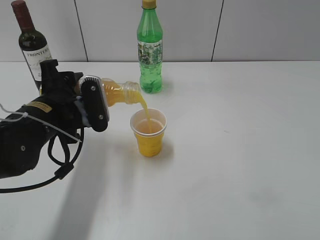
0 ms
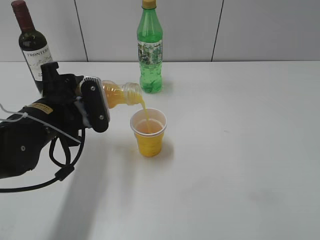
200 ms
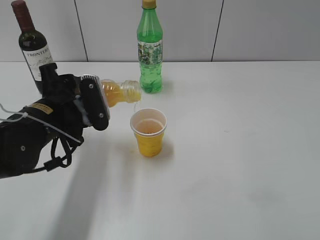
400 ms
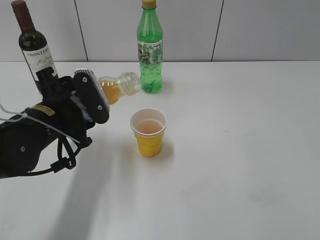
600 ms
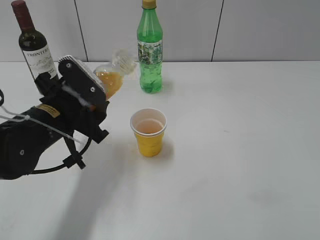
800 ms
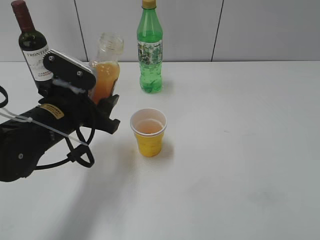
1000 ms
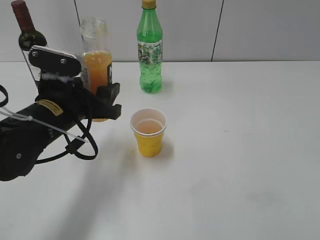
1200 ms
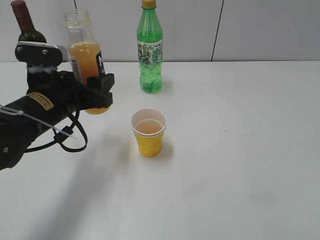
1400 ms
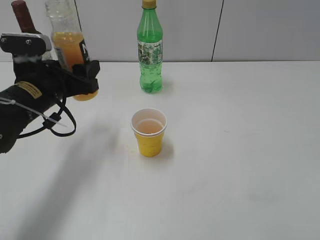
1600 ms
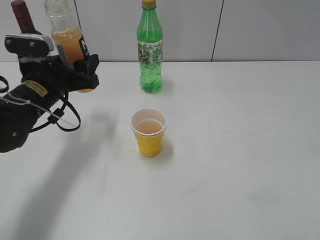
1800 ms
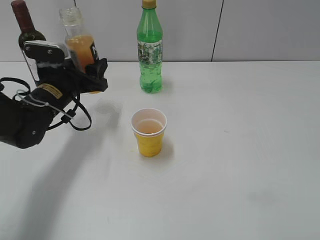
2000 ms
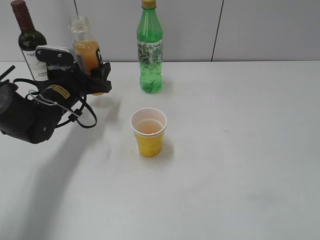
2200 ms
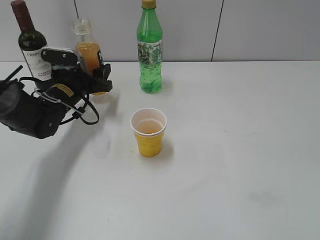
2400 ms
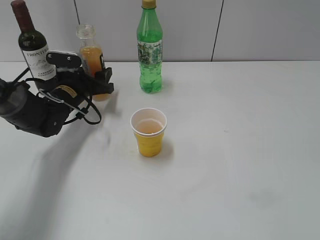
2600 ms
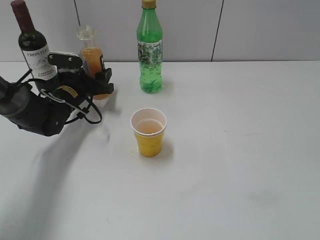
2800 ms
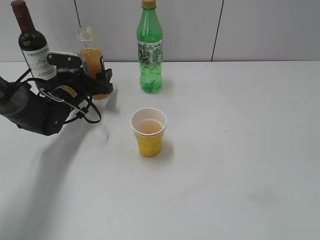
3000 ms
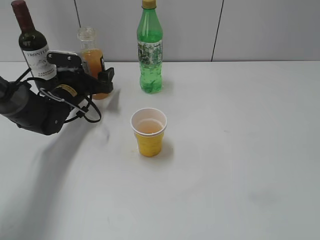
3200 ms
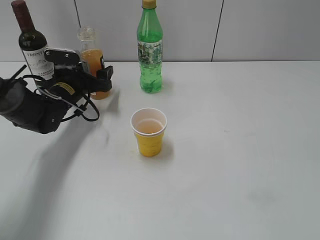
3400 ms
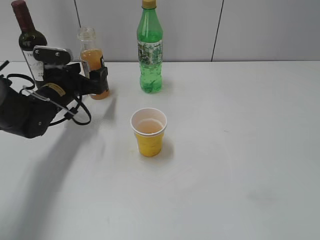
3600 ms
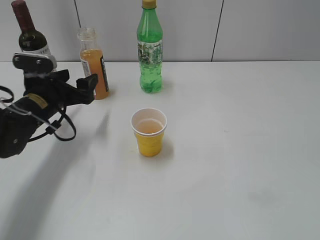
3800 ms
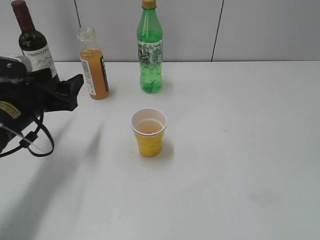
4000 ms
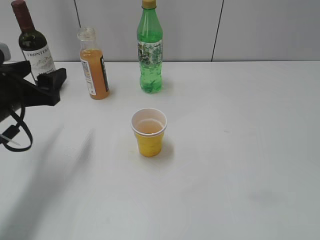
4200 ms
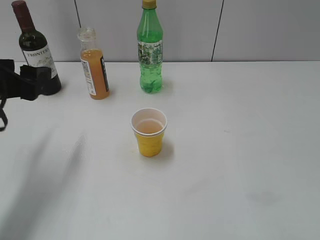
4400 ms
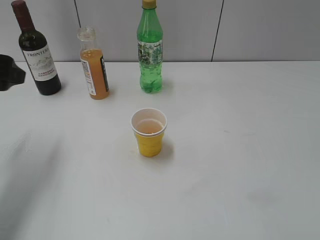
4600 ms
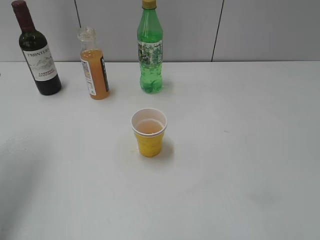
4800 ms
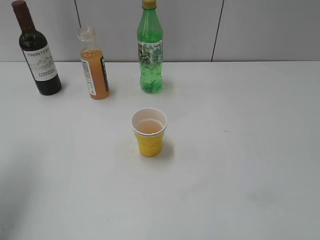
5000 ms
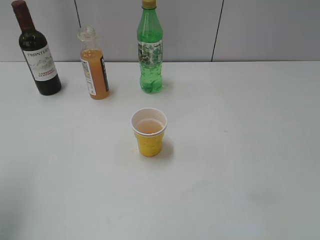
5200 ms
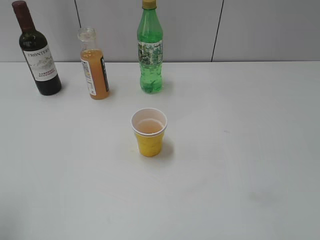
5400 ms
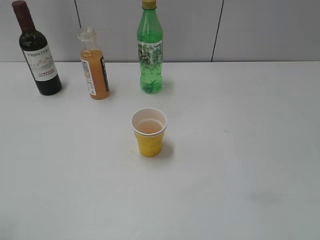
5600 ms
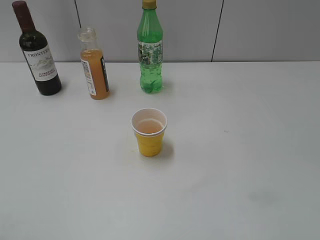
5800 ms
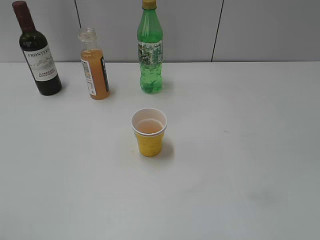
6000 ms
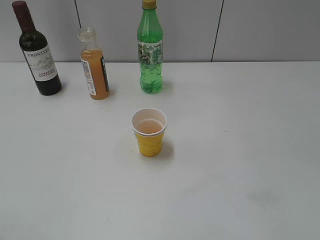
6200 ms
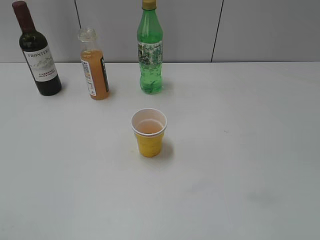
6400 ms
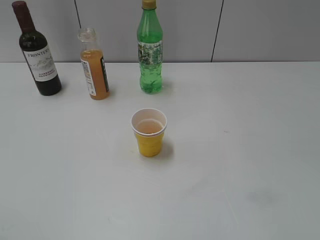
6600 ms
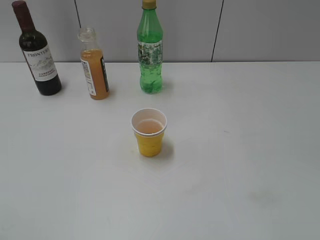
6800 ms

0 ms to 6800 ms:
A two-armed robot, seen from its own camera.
Step, 800 ms to 3400 ms: Place the orange juice bottle on the table with left gripper.
1400 ms to 2800 ms: The left gripper is displaced forward and downward by about 20 cm.
2800 ms to 4000 ms: The left gripper shifts roughly 15 cm backward and upward, and opens.
4000 ms to 5400 ms: The left gripper moves upward and backward, some 25 cm.

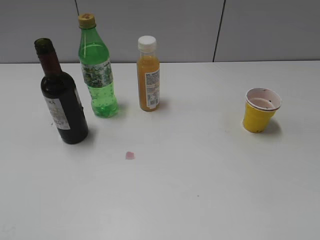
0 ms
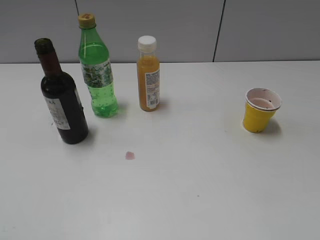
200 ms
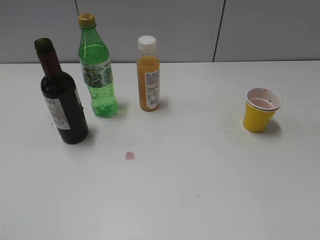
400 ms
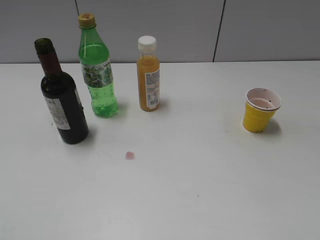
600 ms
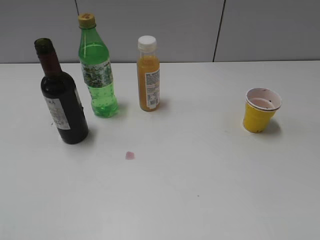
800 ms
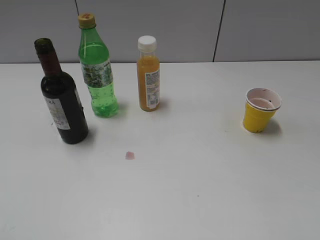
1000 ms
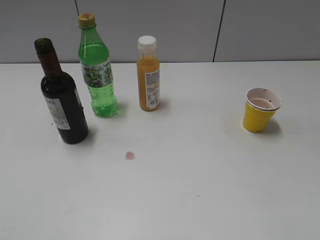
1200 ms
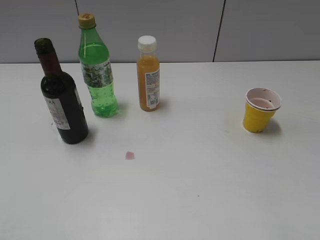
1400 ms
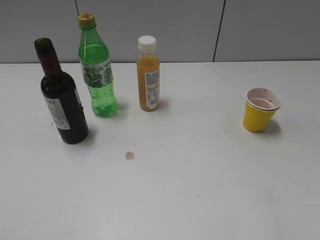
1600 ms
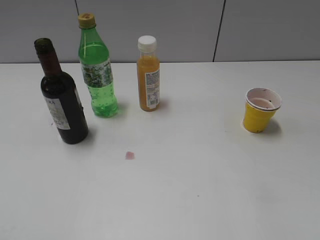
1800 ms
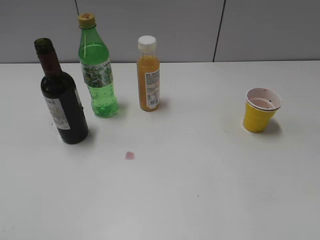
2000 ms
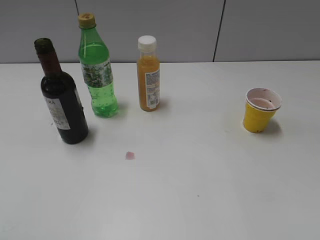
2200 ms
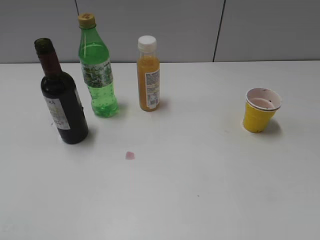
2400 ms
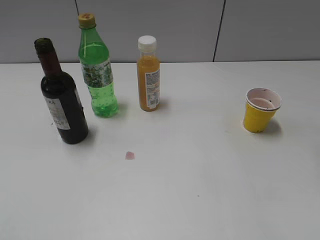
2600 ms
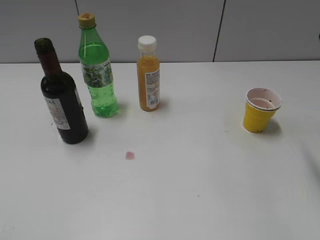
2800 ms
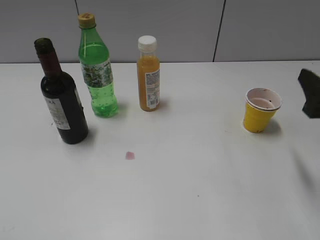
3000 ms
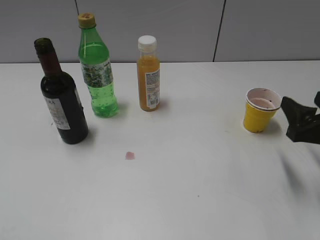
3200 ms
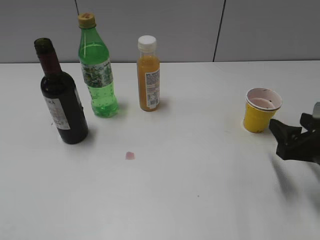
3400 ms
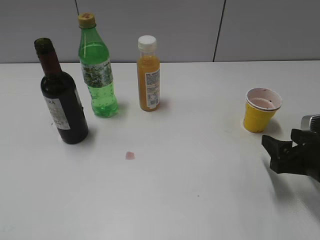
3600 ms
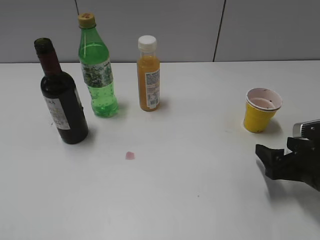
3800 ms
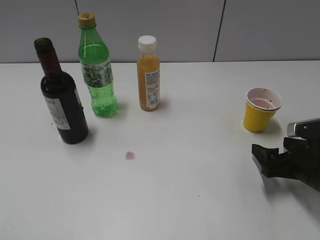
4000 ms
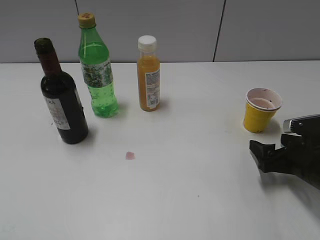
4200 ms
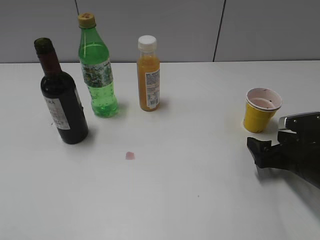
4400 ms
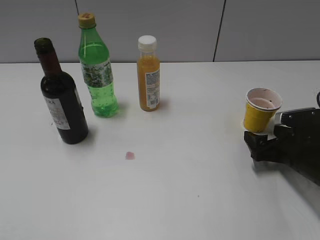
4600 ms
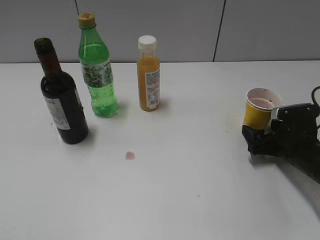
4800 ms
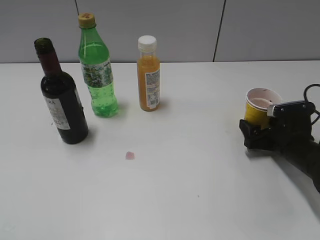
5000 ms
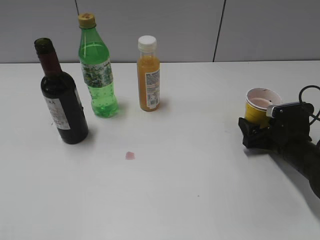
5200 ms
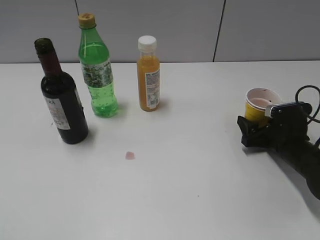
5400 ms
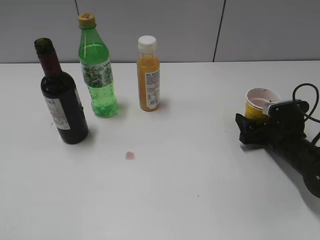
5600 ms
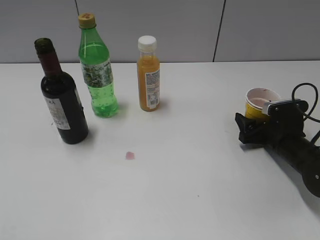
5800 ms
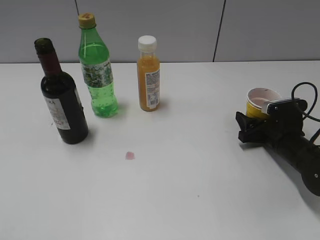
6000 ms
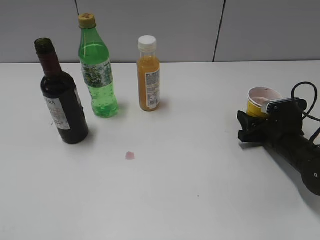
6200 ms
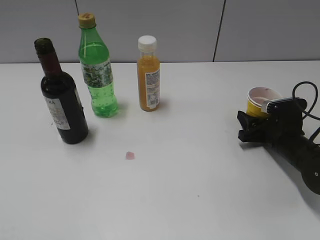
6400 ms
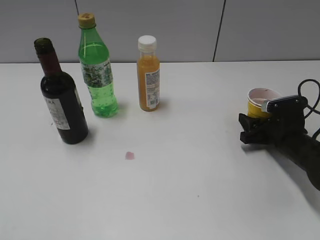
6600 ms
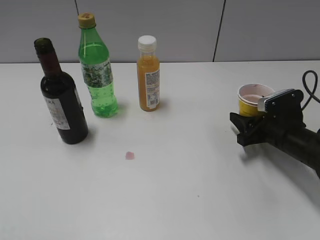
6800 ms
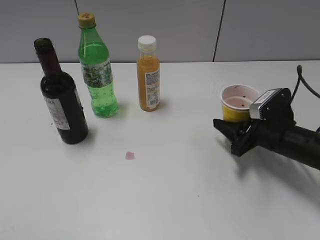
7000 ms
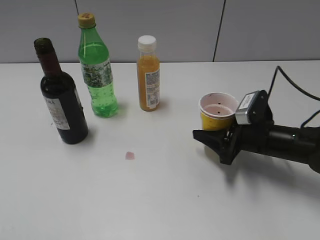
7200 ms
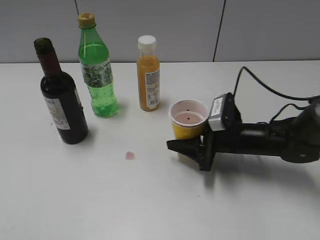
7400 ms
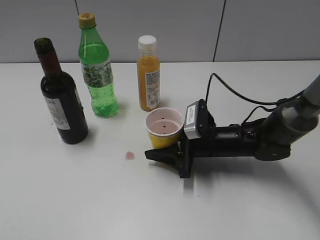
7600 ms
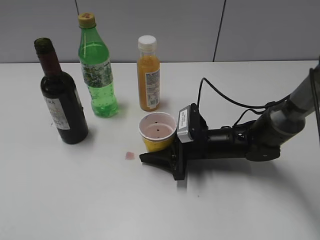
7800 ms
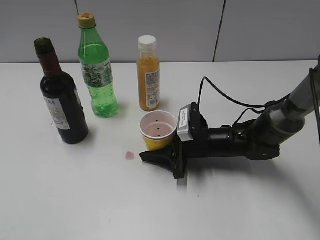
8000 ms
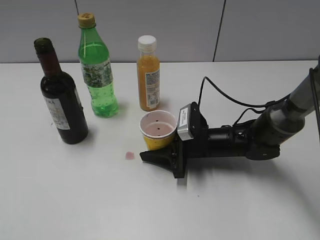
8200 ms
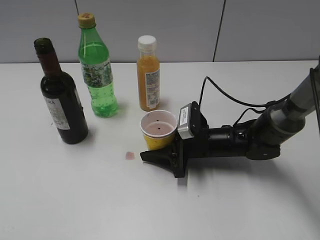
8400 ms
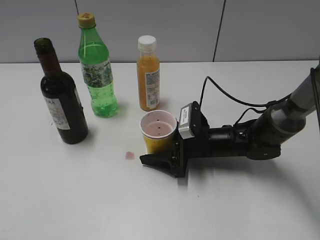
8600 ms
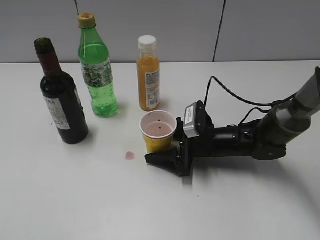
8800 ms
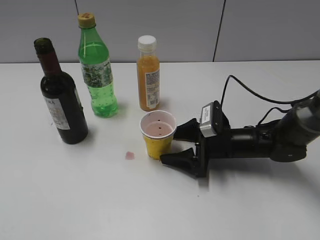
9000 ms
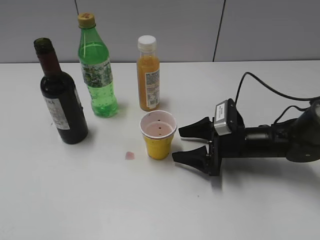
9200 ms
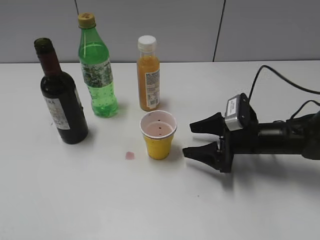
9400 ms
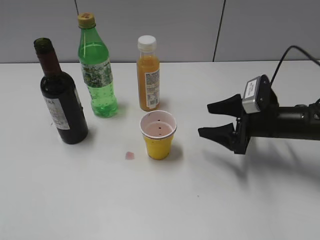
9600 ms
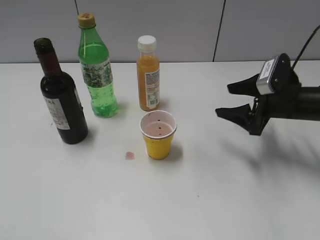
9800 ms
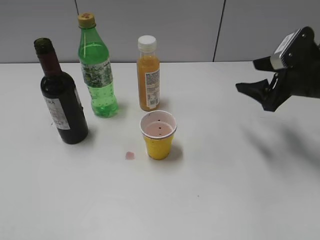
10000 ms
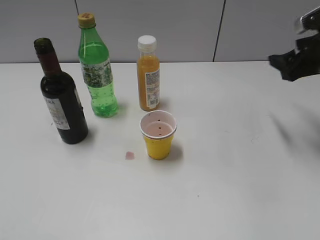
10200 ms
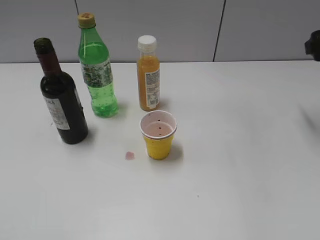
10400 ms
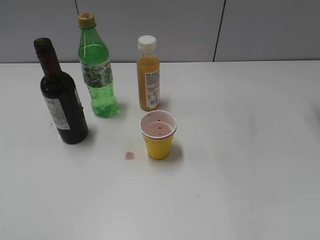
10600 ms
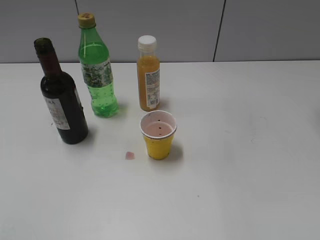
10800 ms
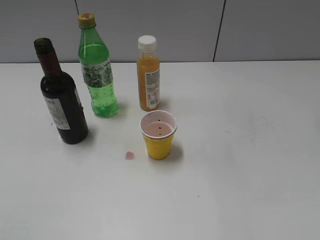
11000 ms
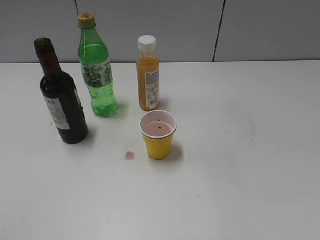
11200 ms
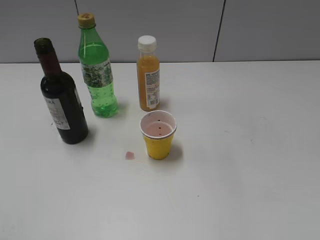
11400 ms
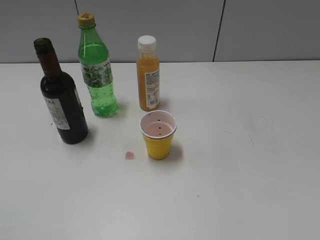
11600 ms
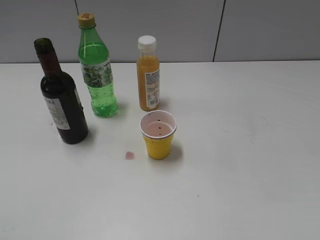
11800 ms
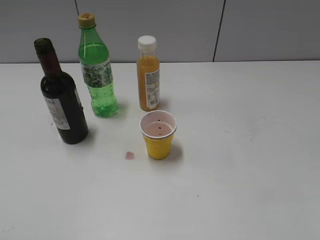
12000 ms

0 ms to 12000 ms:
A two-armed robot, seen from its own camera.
Step, 800 ms to 6400 ms: Grasp the yellow paper cup with right gripper.
Step, 6600 ms to 9000 ms: Place the yellow paper cup on the table with right gripper.
1600 ms to 3000 ms: The right gripper is displaced downward and forward by approximately 20 cm, and closes its fingers.
3000 ms to 4400 ms: The right gripper travels downward by approximately 15 cm, and opens.
4400 ms to 6000 ms: The right gripper heads forward, covering approximately 5 cm, and closes up.
6000 ms to 7600 ms: The right gripper is displaced to the left by some 15 cm, and closes its fingers.
7600 ms to 9000 ms: The right gripper opens.
9000 ms to 10400 ms: The right gripper travels upward and to the right by about 30 cm.

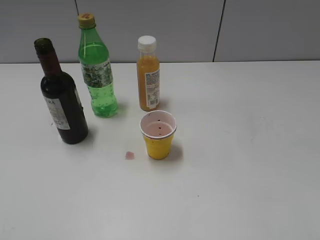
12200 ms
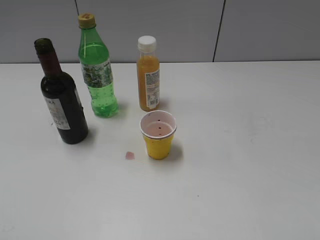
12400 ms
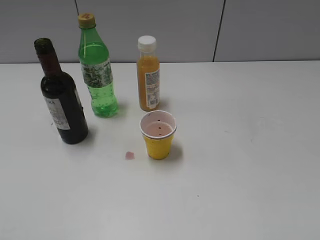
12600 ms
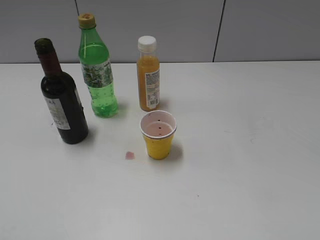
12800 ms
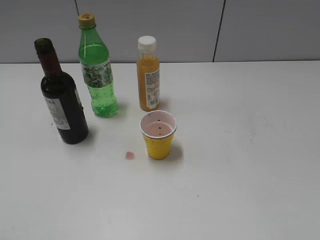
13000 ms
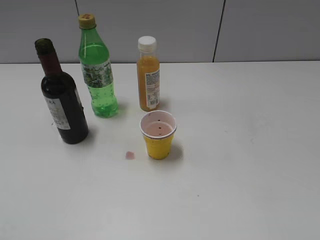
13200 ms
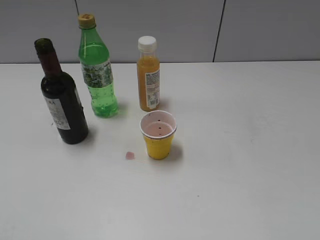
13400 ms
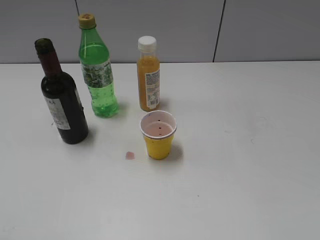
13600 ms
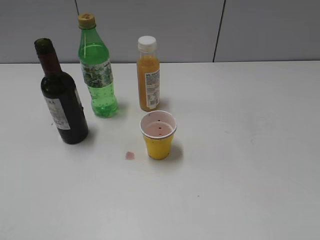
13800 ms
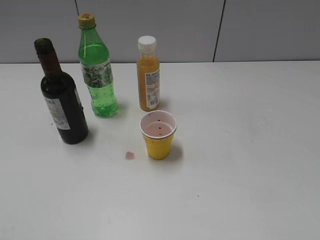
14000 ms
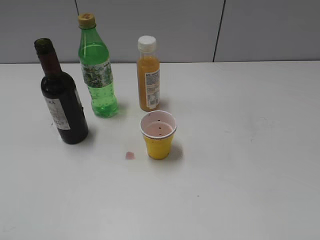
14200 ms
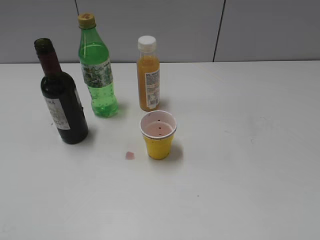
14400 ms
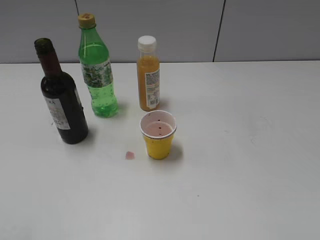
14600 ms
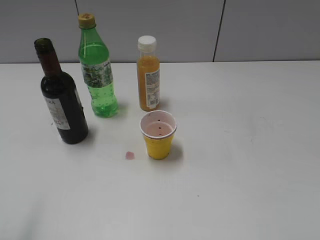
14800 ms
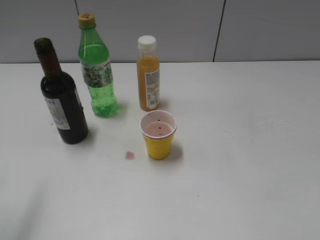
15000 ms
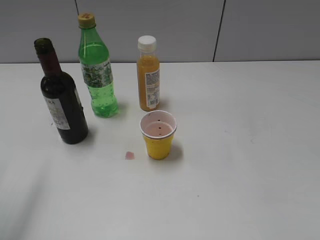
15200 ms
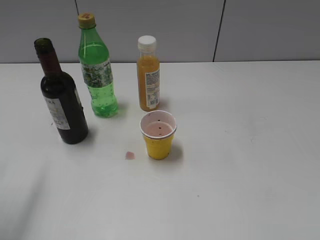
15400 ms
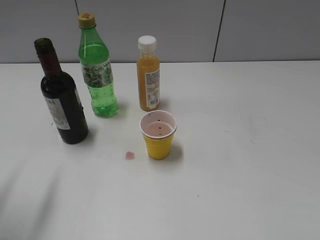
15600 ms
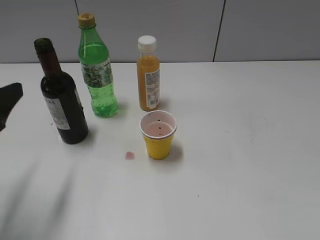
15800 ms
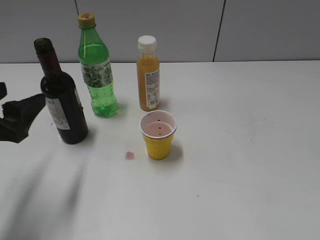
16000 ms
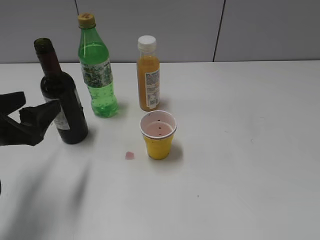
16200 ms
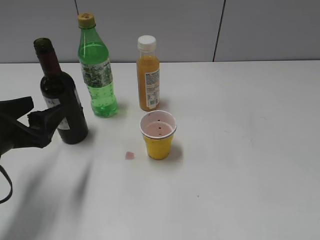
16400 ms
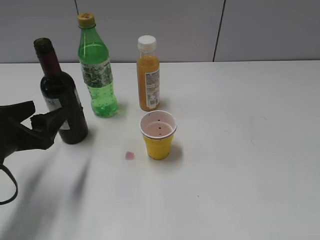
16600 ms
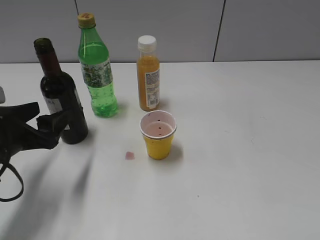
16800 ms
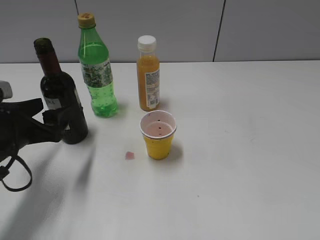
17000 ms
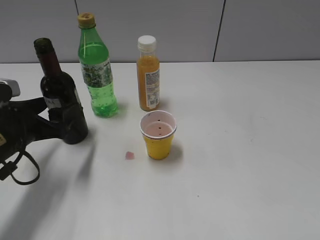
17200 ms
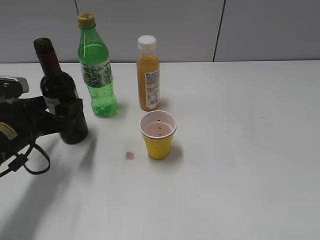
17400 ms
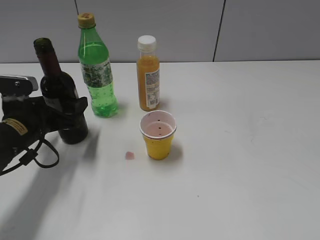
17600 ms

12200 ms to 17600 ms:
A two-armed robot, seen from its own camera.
15000 ms to 16200 ms: The left gripper shifts about 15 cm downward and forward.
16200 ms to 17600 ms: The left gripper goes roughly 10 cm forward and downward.
